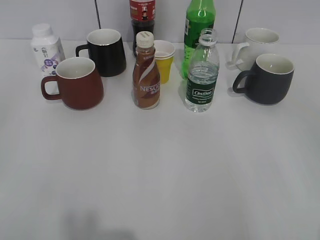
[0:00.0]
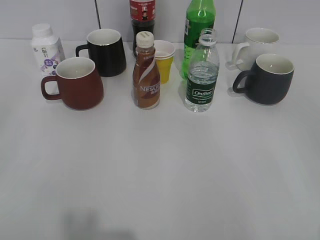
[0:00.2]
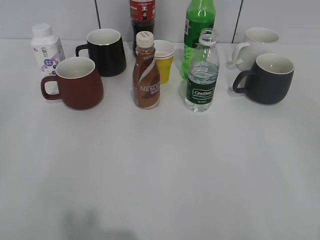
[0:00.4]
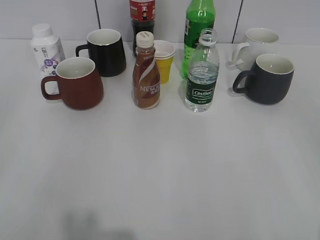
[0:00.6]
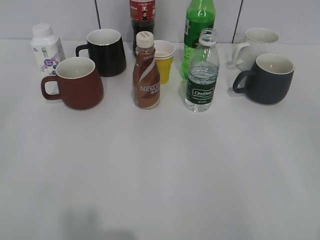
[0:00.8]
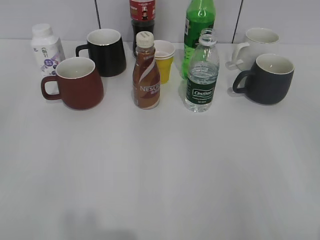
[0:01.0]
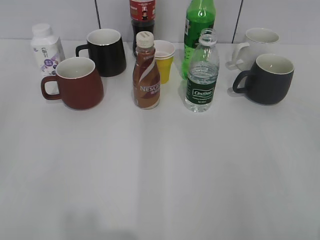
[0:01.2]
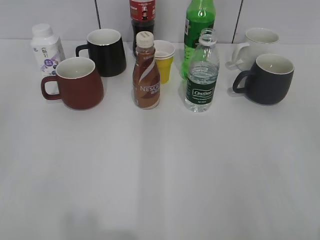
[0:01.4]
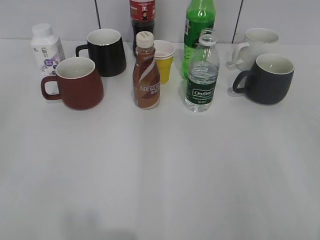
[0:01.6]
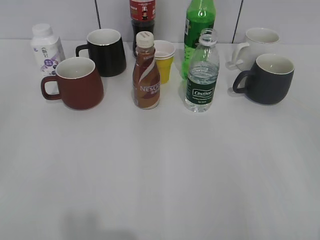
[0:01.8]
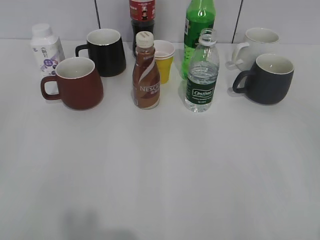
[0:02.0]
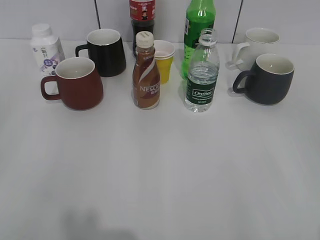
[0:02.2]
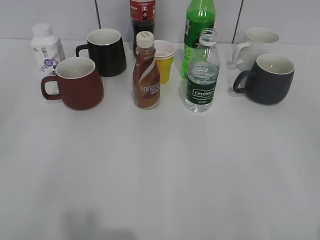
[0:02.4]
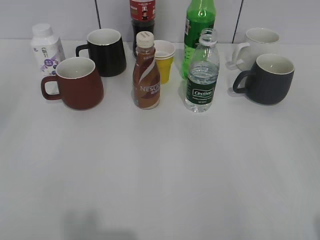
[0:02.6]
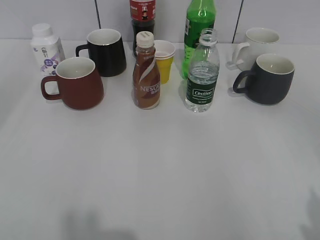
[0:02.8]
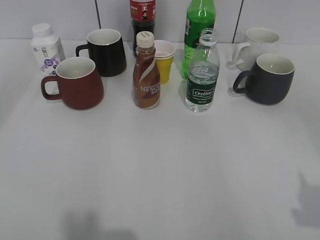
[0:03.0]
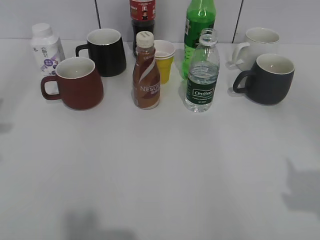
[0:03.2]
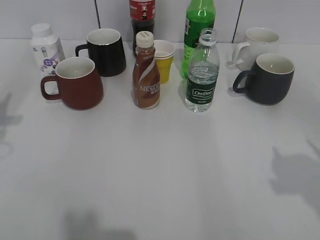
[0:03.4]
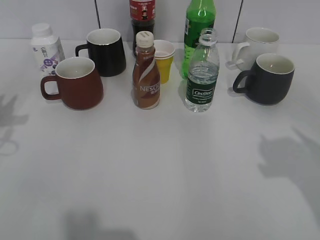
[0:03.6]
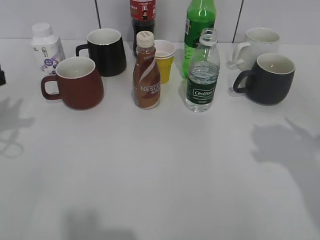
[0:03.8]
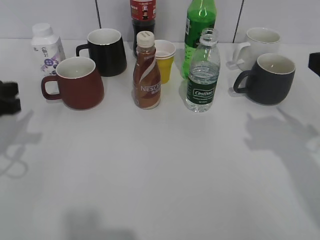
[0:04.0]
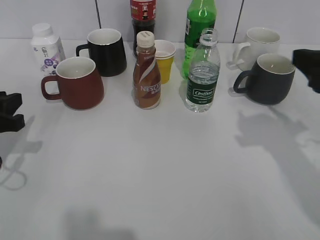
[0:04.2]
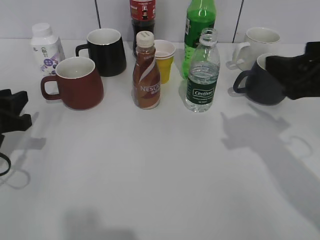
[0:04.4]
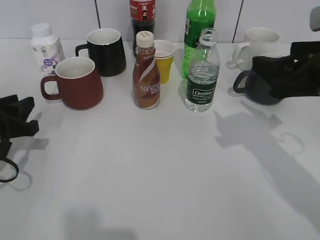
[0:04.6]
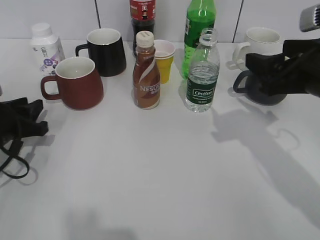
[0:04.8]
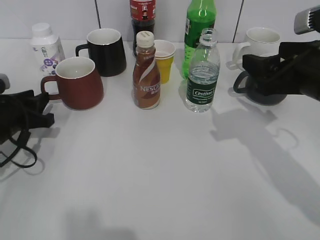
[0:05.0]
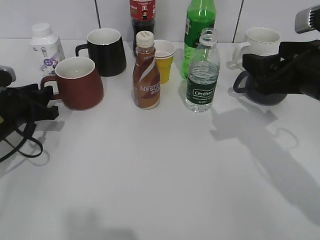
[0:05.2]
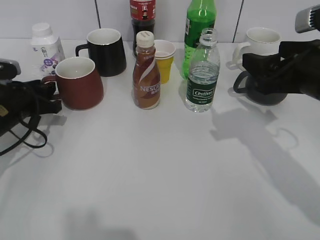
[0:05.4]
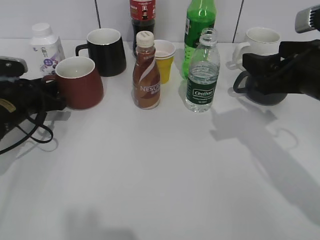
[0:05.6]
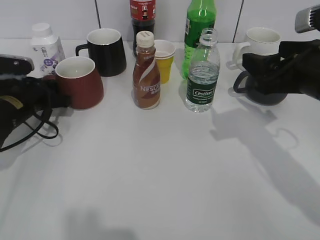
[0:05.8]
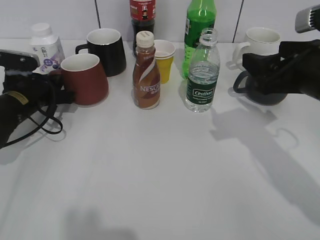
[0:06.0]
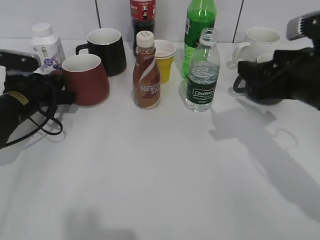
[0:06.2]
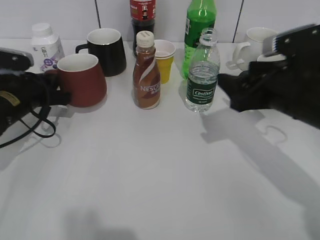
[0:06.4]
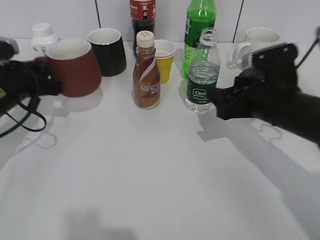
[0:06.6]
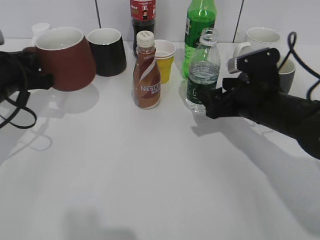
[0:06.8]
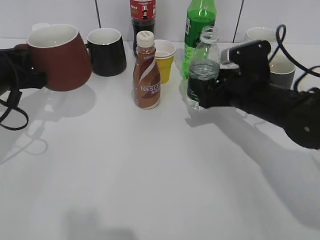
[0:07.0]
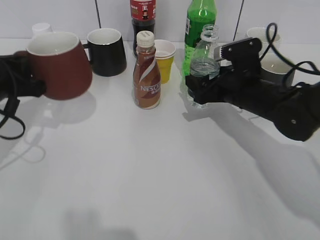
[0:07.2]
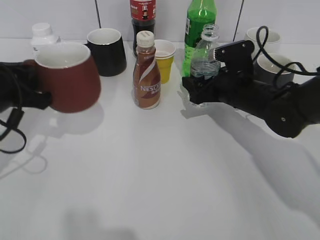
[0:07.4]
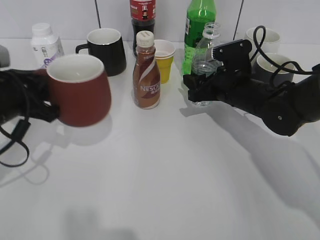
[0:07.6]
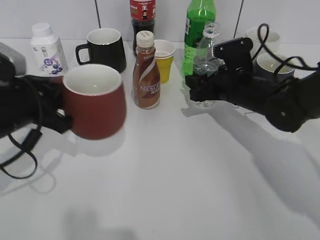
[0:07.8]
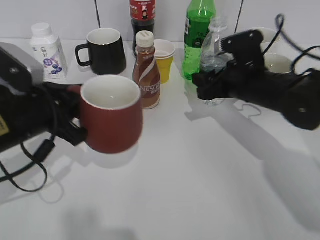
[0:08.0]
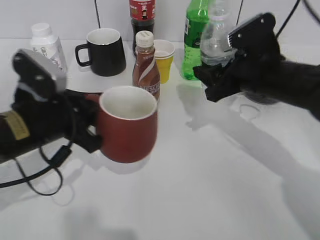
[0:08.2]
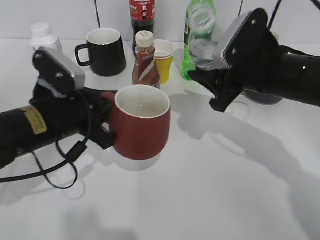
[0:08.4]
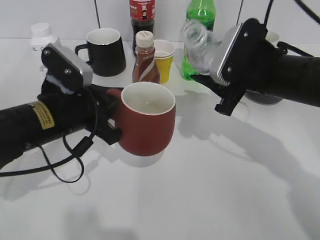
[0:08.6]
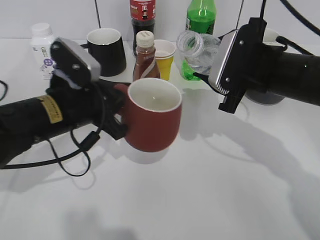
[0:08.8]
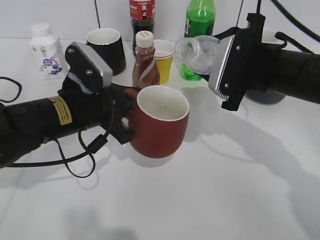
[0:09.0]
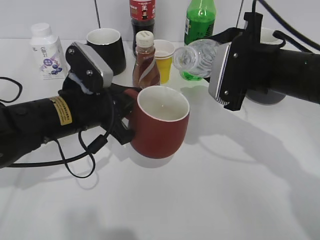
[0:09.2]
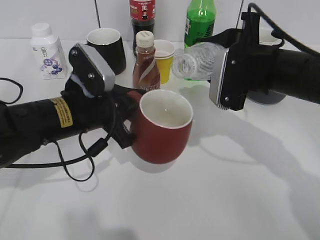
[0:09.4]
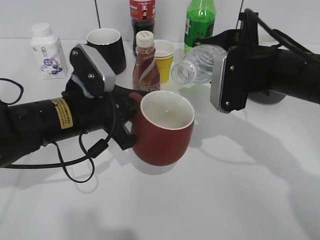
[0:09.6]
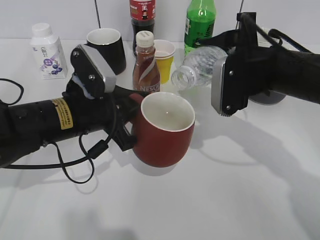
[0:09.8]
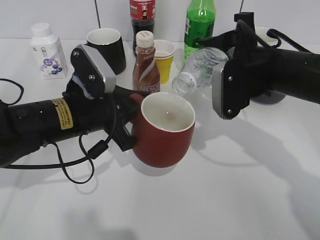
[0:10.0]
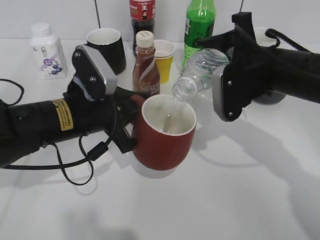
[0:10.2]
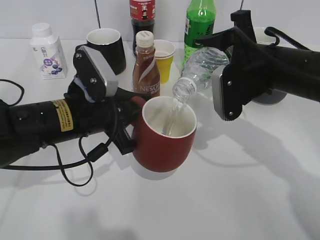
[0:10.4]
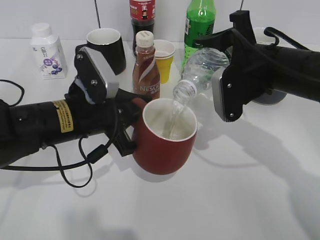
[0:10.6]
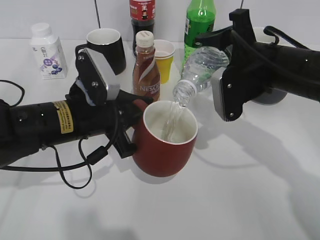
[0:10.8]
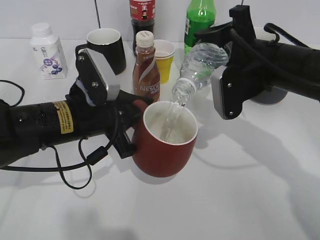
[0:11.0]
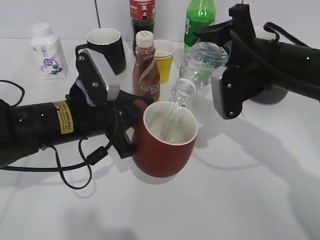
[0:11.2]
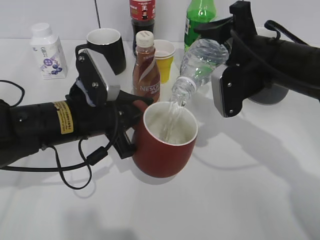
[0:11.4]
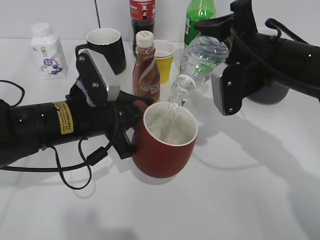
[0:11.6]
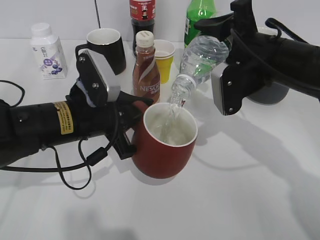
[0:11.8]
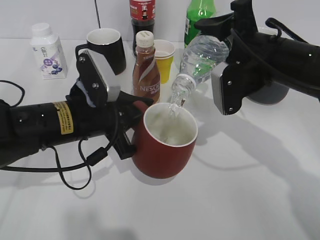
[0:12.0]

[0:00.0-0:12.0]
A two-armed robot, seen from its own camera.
Step, 0:02.2 to 0:05.6: Grasp the red cup with left gripper.
Step, 0:06.0 to 0:06.6: Lift the red cup with left gripper.
Step, 0:06.8 to 0:07.4: Grasp the bottle with water with right gripper.
0:01.6 to 0:03.0: The right gripper changes place by roughly 5 cm. The left gripper travels forward and upward by approximately 15 cm.
0:03.0 to 0:04.4: The left gripper moves downward and forward, about 20 cm; the right gripper goes some 15 cm forward.
0:04.4 to 0:06.0: The left gripper is displaced forward and downward by about 15 cm, and closes.
0:06.0 to 0:07.6: The right gripper travels forward, downward and to the left by about 20 cm, and closes. The left gripper goes roughly 15 cm backward and upward.
0:07.6 to 0:09.0: The left gripper travels to the right by some 10 cm. Meanwhile the right gripper shifts about 10 cm upward and backward.
0:10.4 to 0:12.0: There are only small adjustments of the grippers.

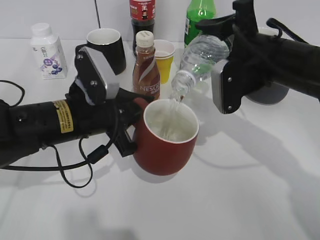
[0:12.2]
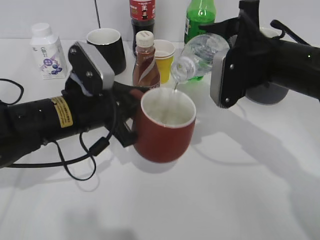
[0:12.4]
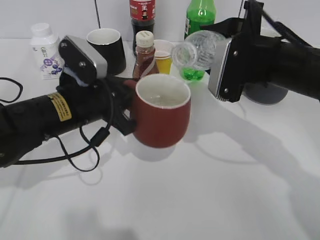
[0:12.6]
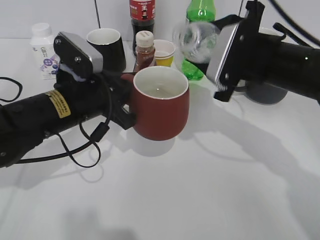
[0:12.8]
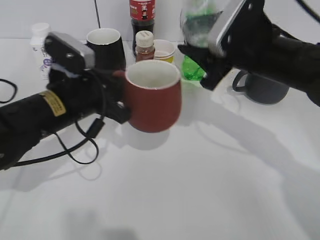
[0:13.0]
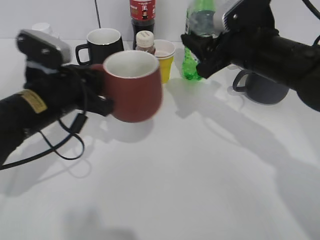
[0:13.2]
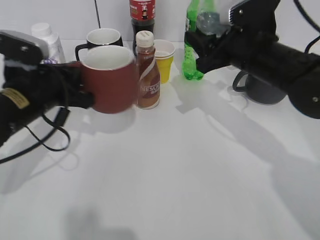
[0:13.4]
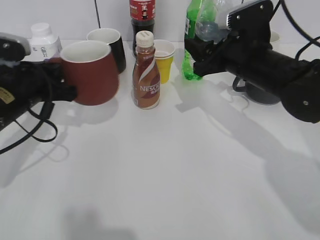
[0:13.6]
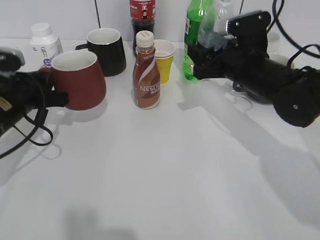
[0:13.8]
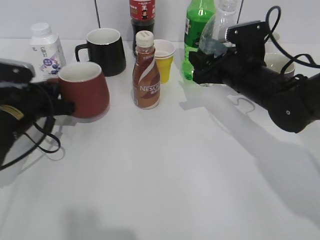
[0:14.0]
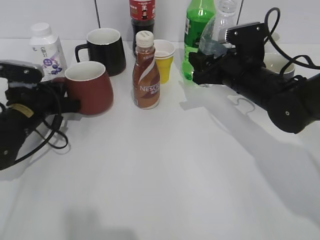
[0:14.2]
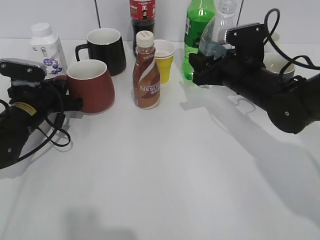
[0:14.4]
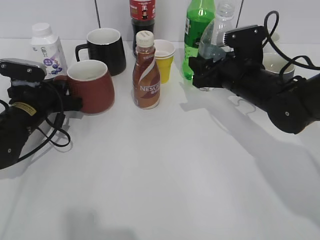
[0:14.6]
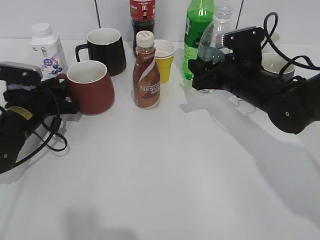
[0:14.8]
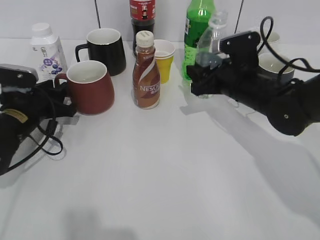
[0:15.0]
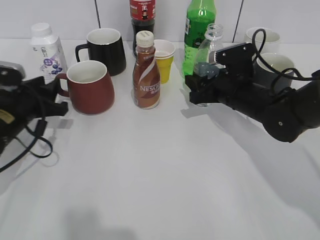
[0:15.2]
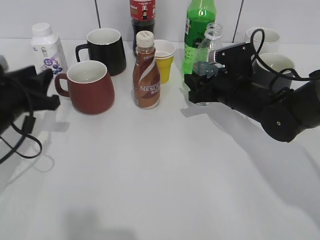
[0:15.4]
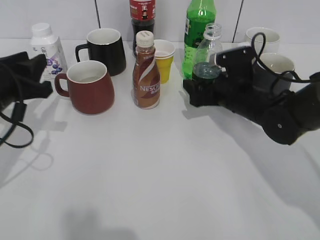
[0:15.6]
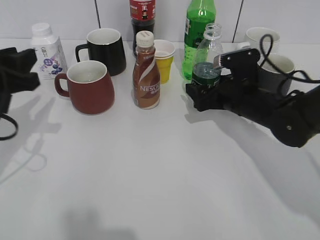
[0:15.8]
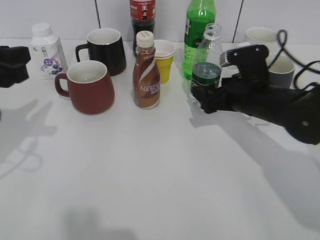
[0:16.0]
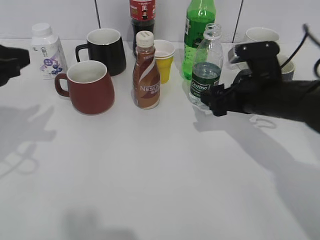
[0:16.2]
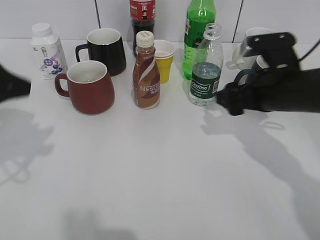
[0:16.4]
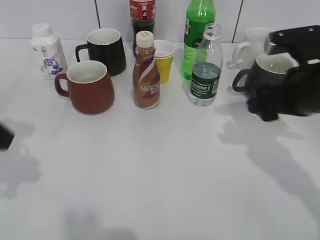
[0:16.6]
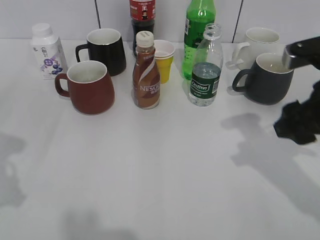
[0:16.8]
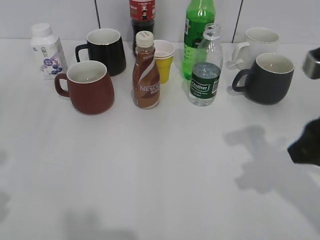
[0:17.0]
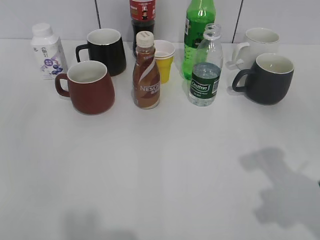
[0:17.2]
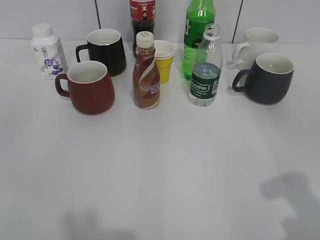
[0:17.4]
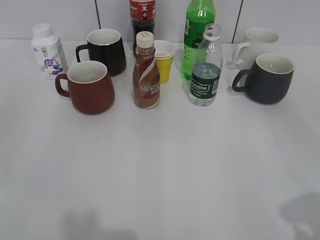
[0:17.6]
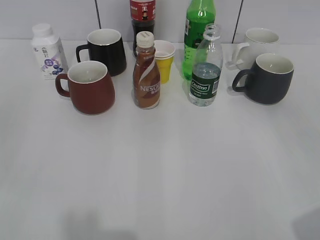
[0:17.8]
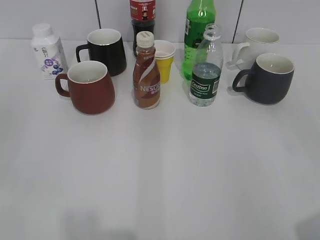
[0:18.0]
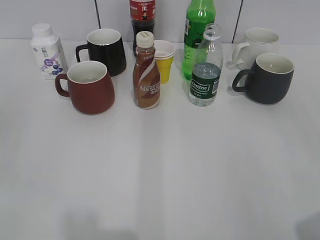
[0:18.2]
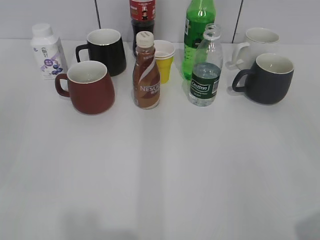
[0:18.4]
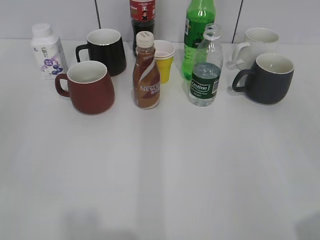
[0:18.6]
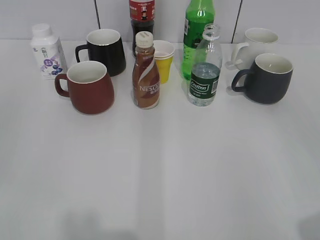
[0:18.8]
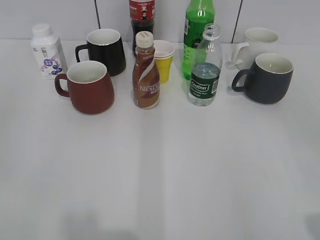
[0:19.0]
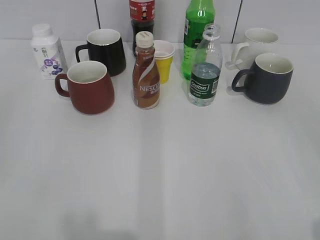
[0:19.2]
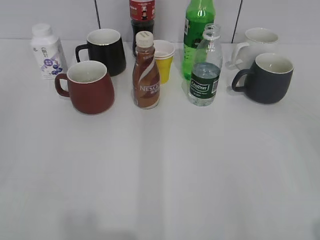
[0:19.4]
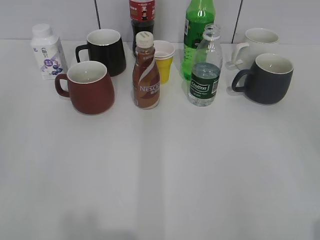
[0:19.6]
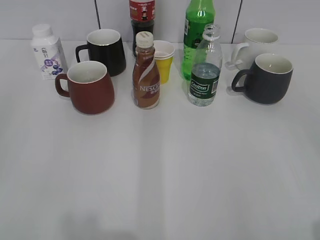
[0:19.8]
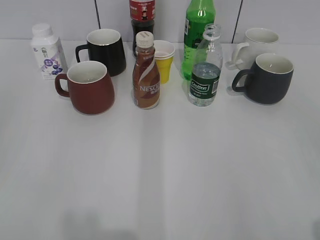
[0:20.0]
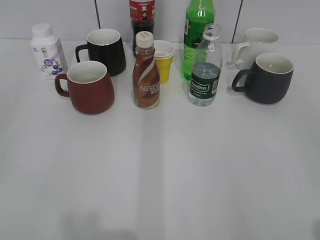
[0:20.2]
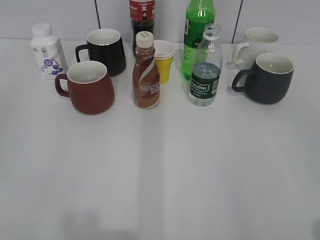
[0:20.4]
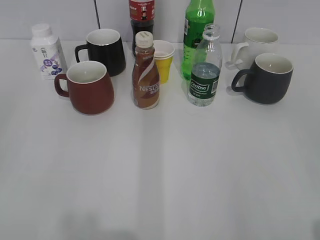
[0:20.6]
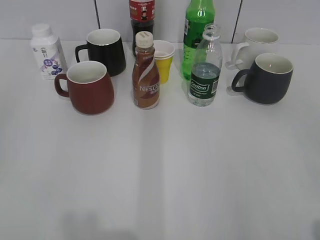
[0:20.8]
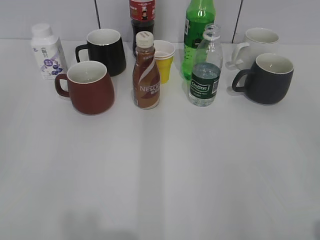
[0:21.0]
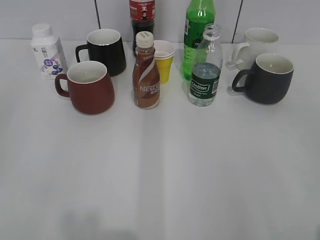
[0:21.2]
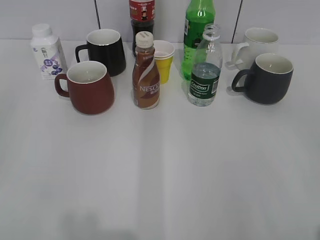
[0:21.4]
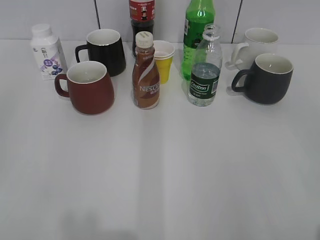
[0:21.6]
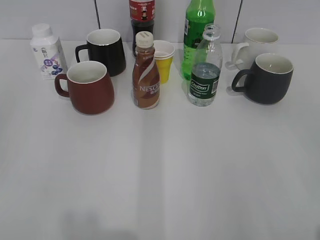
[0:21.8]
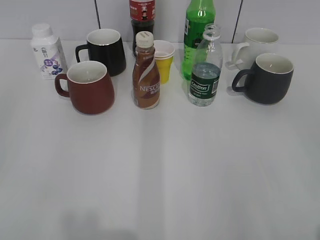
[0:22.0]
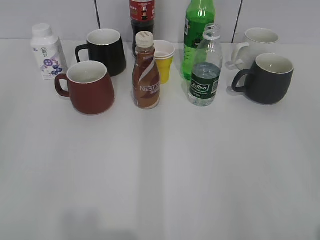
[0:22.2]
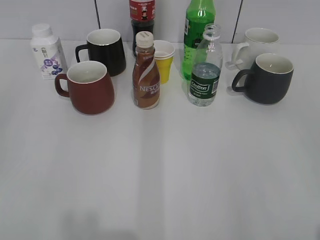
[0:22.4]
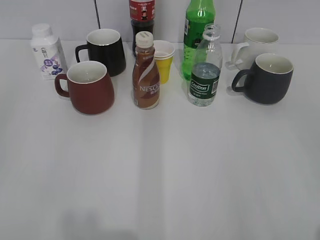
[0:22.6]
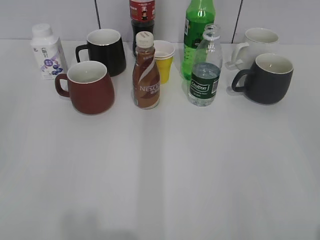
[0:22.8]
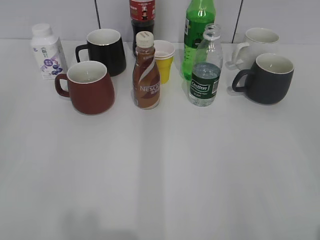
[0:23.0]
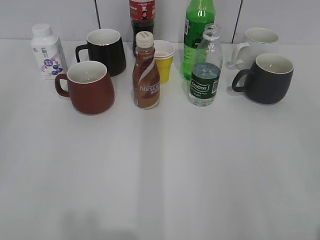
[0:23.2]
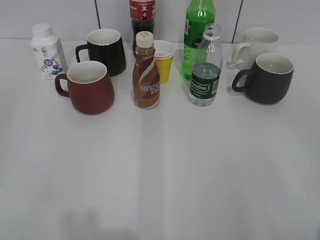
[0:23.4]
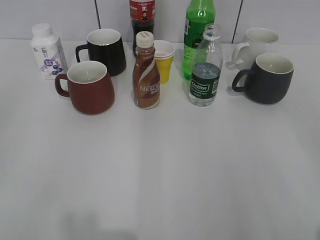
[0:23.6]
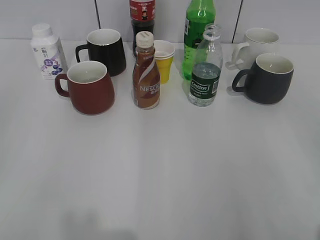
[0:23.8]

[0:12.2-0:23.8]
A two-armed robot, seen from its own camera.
Step, 0:12.8 to 0:14.6: Place the red cup on the table with left gripper.
Step, 0:15.0 to 0:16.0: Place the water bottle on the table with right gripper.
0:12.2 to 0:13.6: The right gripper moves about 5 cm. The left gripper goes approximately 10 cm to the left.
0:13.6 to 0:15.0: The grippers both shift downward by some 5 cm. The left gripper opens.
0:15.0 to 0:16.6: The left gripper heads upward and backward, covering about 25 cm, while the right gripper moves backward and upward, roughly 10 cm, and opens.
0:16.6 to 0:18.0: The left gripper is displaced backward and to the left by approximately 15 cm; the right gripper heads backward, covering approximately 25 cm, and closes.
0:19.4 to 0:21.0: Both grippers stay about where they are.
0:21.0 to 0:23.8: The two grippers keep their place.
